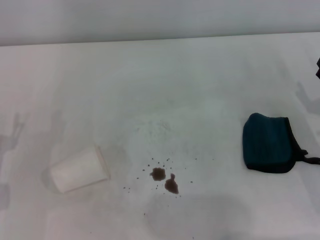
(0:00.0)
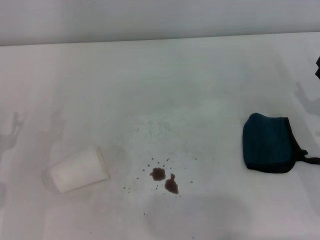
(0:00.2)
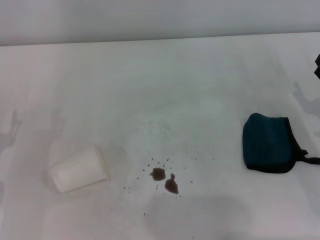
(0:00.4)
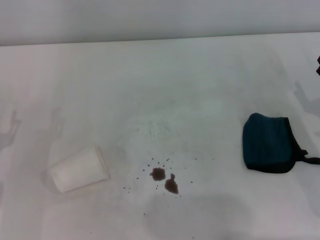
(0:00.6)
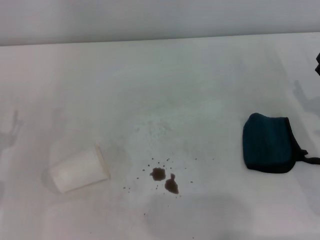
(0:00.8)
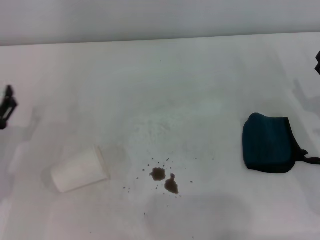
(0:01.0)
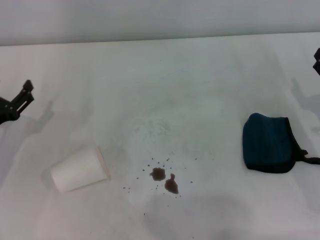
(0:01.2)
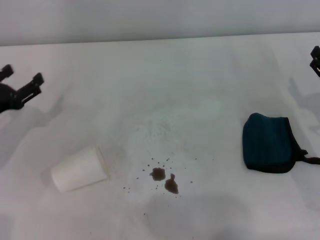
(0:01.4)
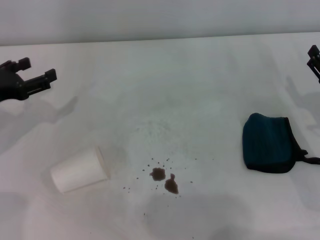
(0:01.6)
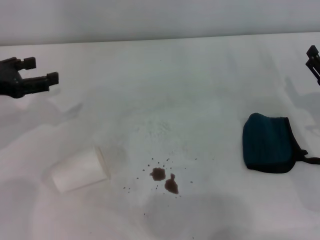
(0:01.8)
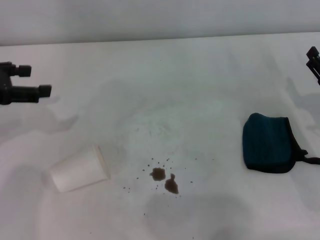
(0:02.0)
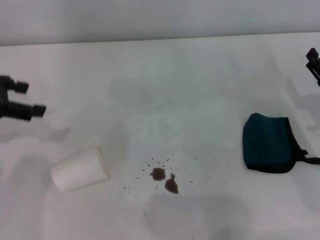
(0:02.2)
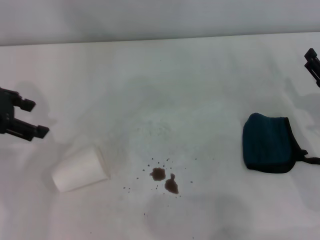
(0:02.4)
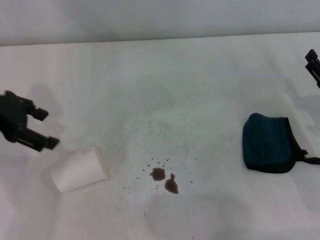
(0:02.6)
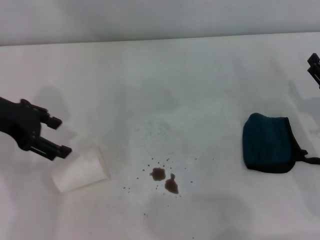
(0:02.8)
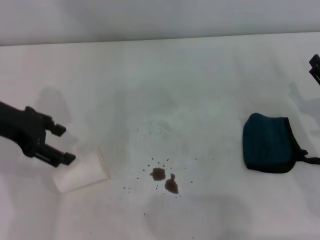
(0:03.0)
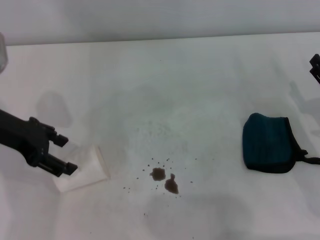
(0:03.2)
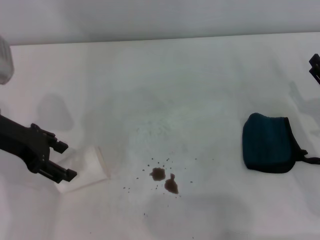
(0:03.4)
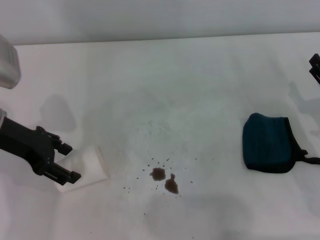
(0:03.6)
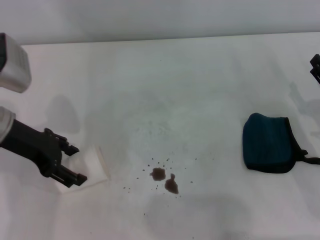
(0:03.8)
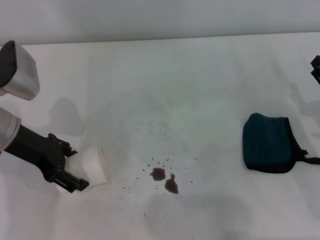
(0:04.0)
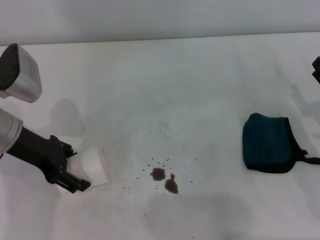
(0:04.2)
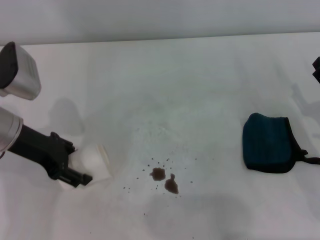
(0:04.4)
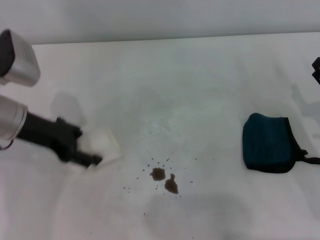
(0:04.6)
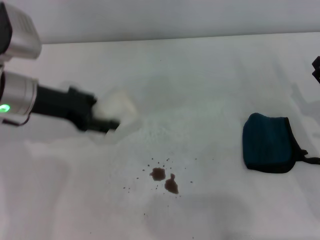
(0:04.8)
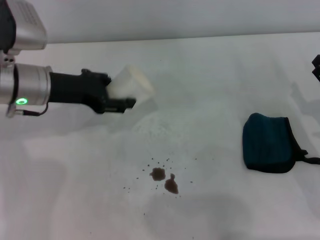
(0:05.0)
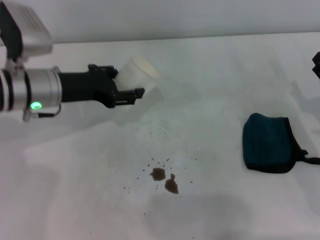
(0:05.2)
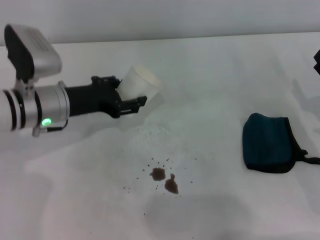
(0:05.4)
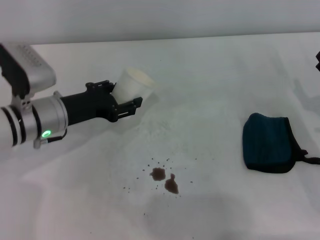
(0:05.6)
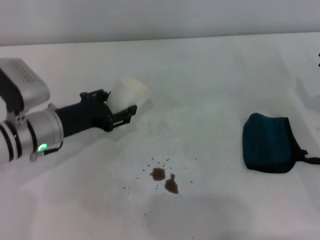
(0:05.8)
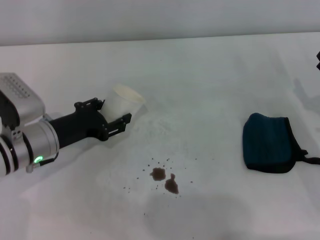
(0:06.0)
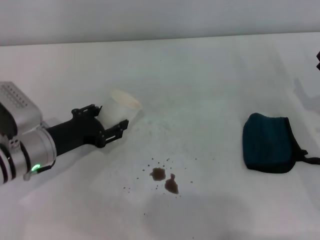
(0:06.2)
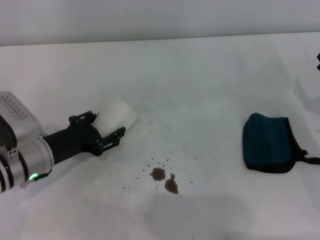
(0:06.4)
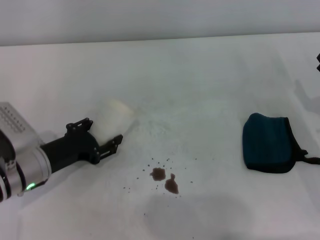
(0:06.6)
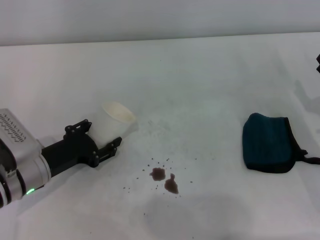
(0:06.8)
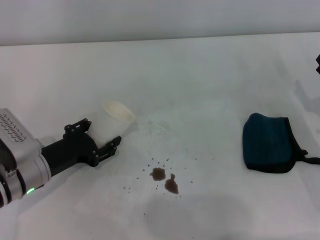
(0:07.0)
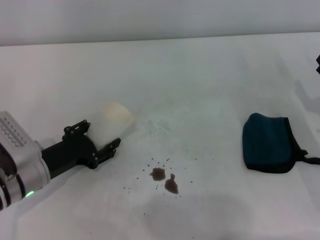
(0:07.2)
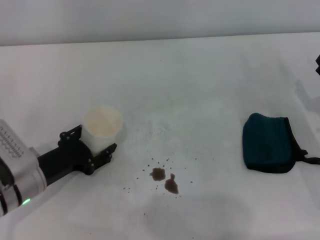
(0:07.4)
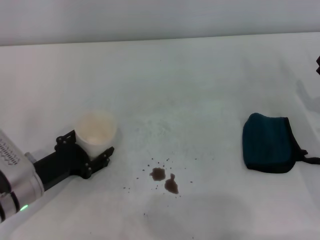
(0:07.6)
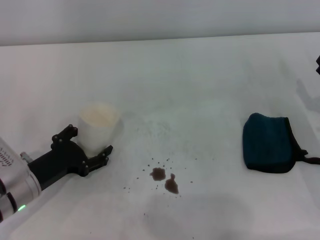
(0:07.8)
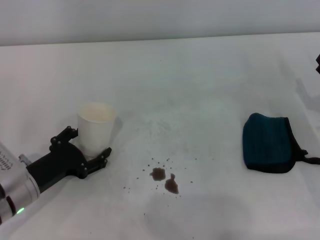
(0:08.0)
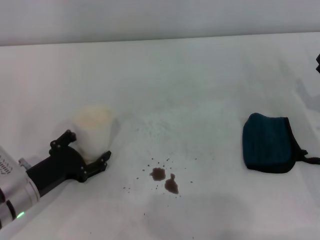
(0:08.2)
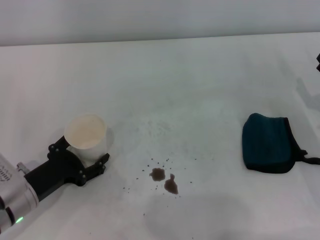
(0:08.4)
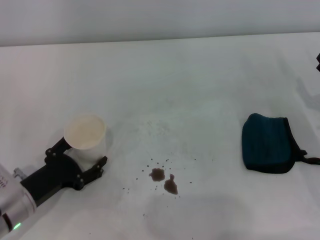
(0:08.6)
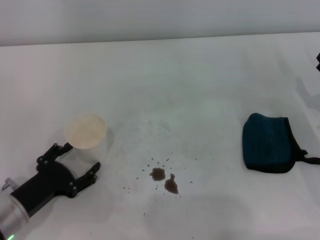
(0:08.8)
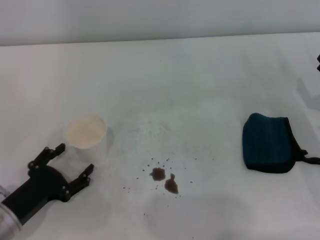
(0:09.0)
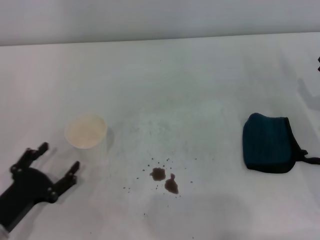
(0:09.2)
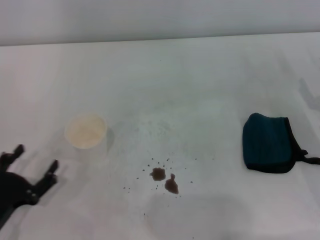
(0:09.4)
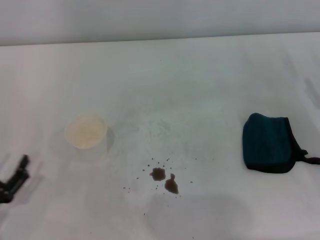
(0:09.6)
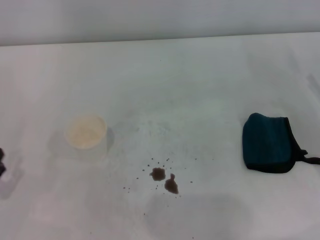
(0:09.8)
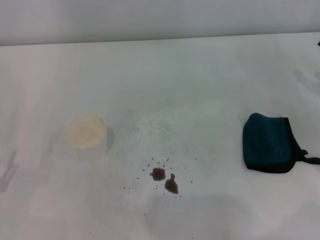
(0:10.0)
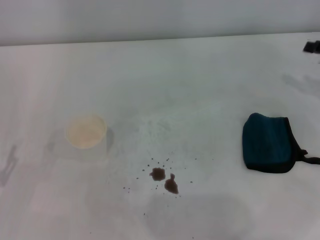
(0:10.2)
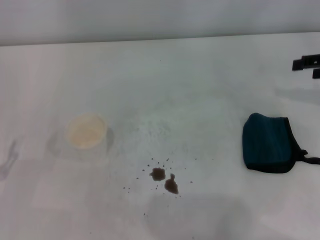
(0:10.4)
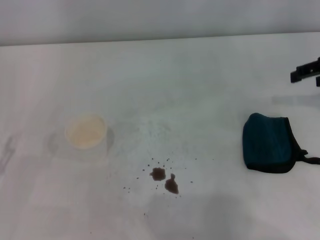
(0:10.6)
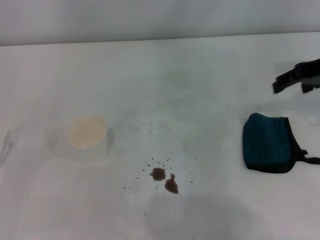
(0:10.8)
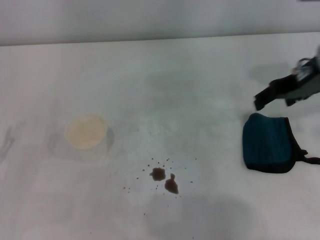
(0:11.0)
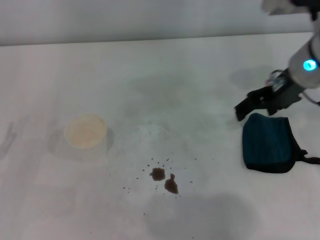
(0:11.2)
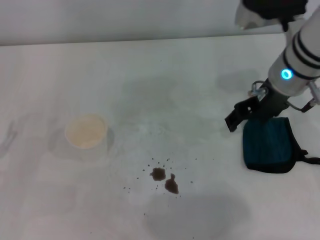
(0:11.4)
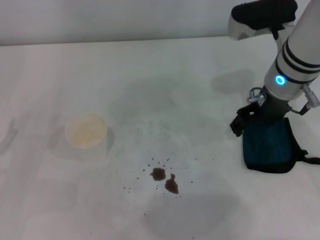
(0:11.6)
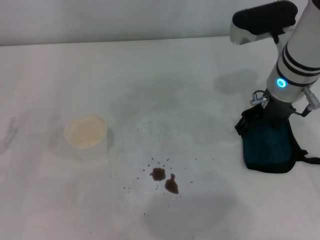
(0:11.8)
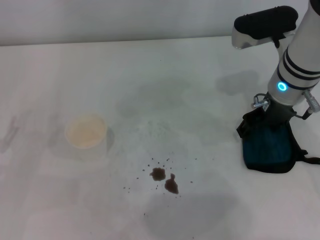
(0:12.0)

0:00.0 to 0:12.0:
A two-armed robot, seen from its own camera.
Step, 0:00.0 to 0:04.0: Grasp the paper cup with the left gripper.
Step, 0:04.2 to 0:08.4: Stand the paper cup upright with the left gripper.
0:00.0 to 0:01.6: The left gripper is displaced forward and upward by some 15 cm.
0:01.6 to 0:03.0: The left gripper moves upward and to the right, about 10 cm.
0:03.0 to 0:04.4: The left gripper goes some 5 cm downward, and closes.
0:04.4 to 0:06.0: The left gripper moves downward, approximately 10 cm, and closes up.
0:06.0 to 0:07.6: The left gripper is displaced backward by approximately 5 cm.
0:07.6 to 0:09.0: The left gripper moves backward, about 5 cm, and opens up.
0:09.0 to 0:10.4: The right gripper shifts about 15 cm upward and forward; the left gripper goes some 5 cm to the left.
0:10.4 to 0:12.0: The right gripper shifts roughly 20 cm to the left.

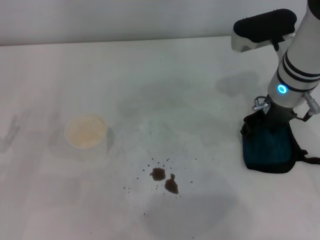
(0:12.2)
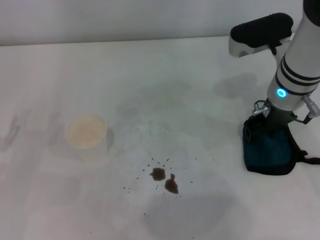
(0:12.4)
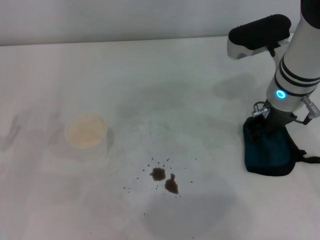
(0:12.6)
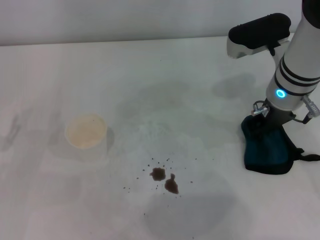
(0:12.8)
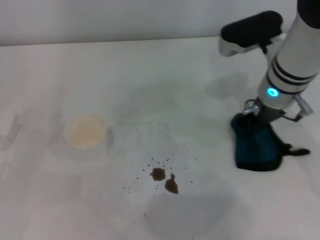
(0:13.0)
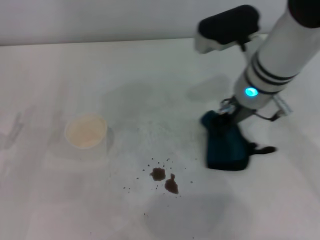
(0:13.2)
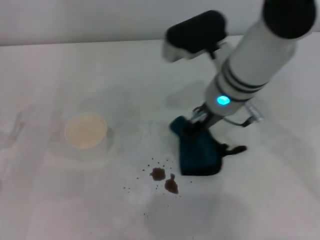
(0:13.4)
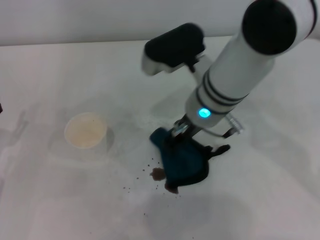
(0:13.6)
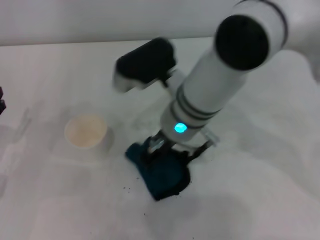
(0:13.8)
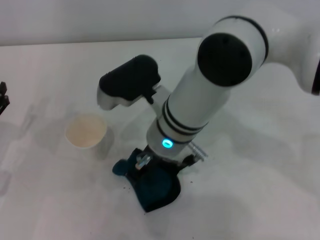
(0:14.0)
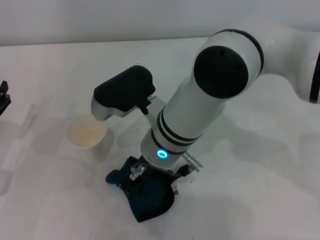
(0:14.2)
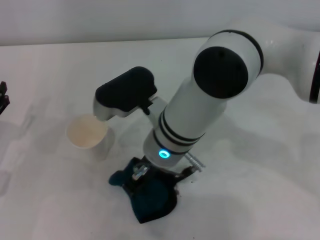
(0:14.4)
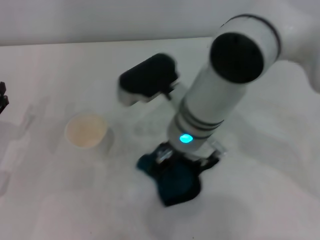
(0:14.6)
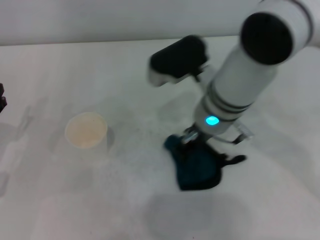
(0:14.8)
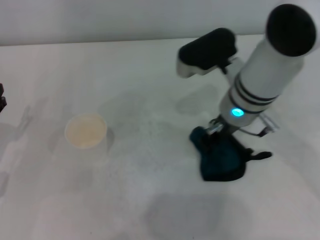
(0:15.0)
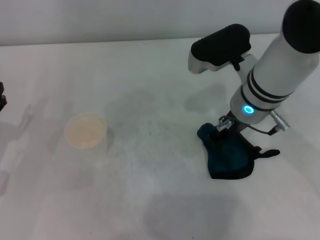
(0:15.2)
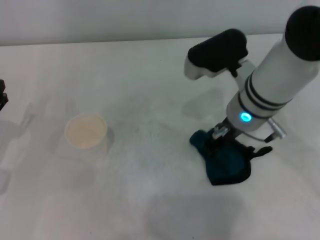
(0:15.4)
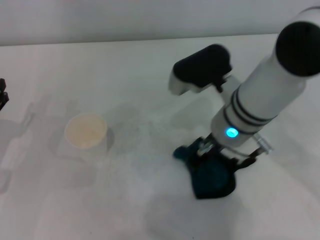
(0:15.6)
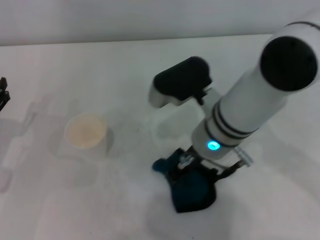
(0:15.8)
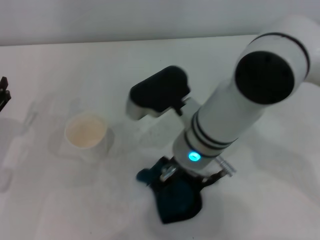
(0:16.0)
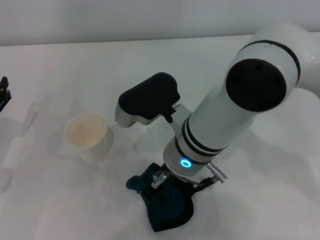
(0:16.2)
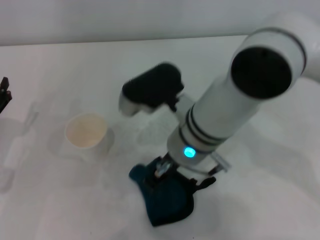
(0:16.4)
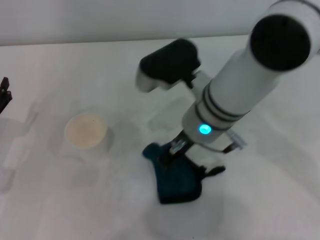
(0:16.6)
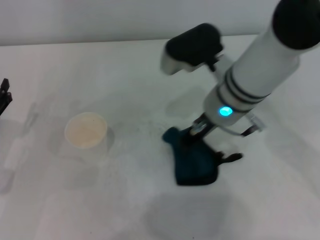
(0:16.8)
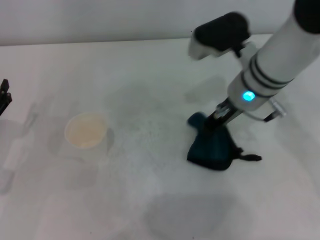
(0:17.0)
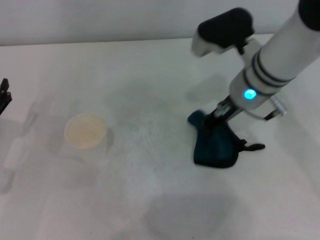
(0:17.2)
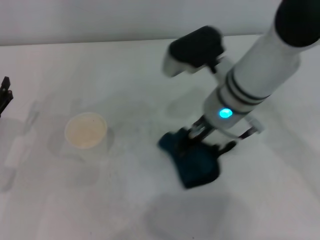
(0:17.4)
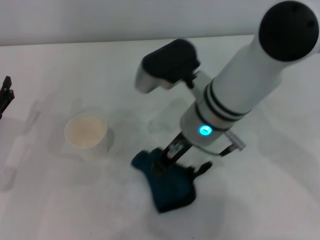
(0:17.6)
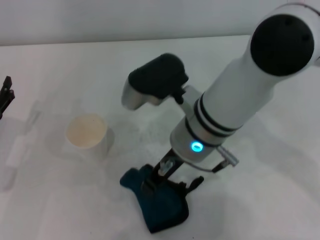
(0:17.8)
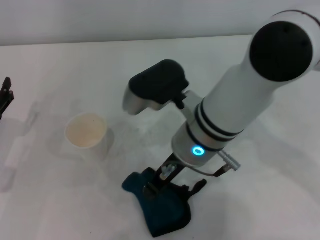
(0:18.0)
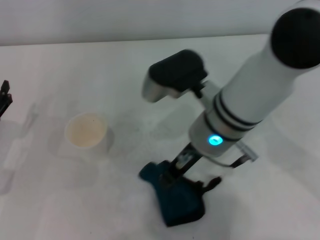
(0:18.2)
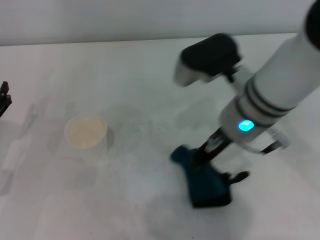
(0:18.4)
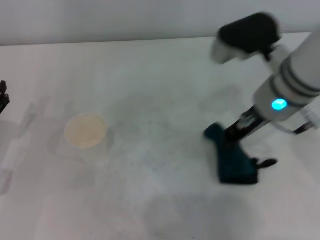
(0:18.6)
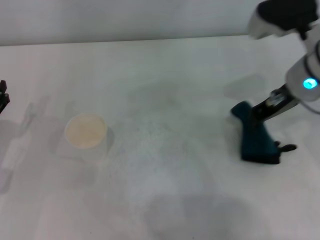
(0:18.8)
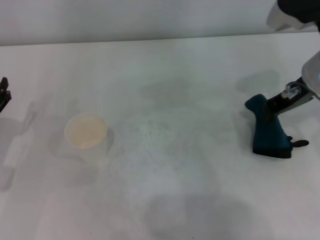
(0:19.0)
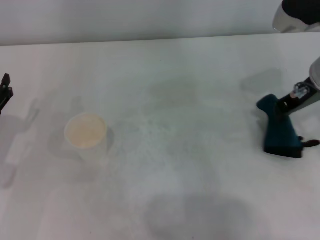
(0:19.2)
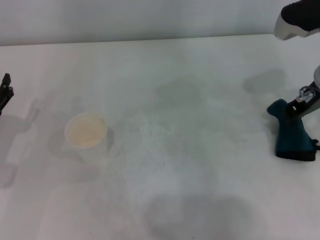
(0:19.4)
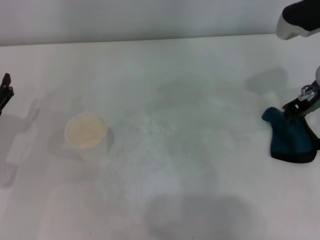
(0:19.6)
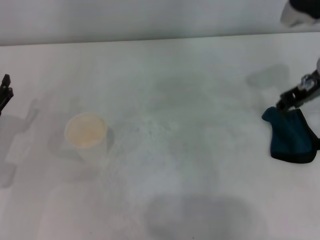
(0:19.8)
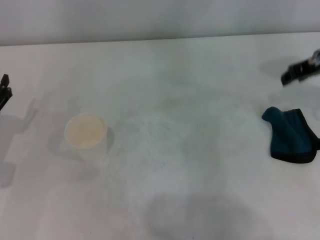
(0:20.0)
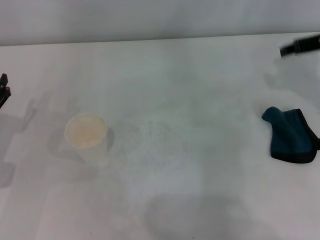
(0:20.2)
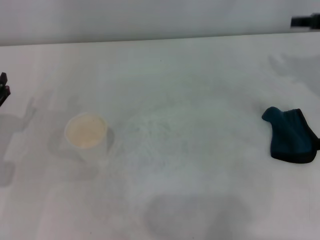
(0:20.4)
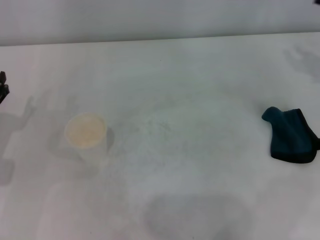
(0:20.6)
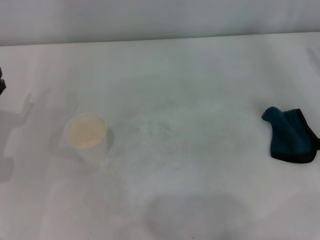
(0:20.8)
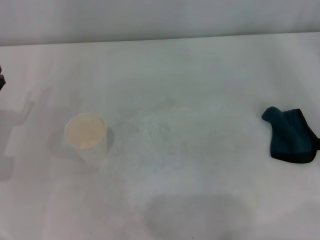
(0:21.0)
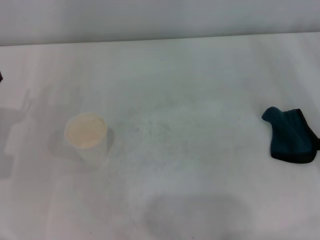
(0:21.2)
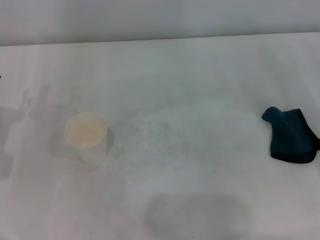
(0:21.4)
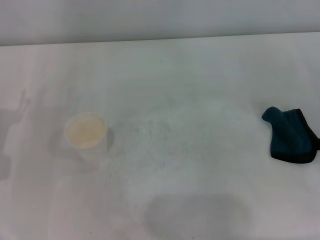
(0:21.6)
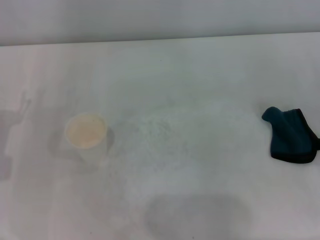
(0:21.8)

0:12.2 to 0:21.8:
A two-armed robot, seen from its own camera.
Step, 0:13.0 to 0:18.6: Wipe the stains off the table with the right gripper.
Step, 0:18.8 to 0:19.4: Place the rag on the table with the right gripper.
0:12.2 to 0:13.8: The right gripper moves to the left, some 15 cm, and closes its fingers.
0:13.8 to 0:15.4: The right gripper travels to the right by about 10 cm.
0:15.4 to 0:17.0: The right gripper goes to the left and returns, approximately 10 cm each way.
0:17.0 to 0:18.6: The right gripper travels to the left and back again, roughly 10 cm each way.
0:18.6 to 0:20.2: The right gripper goes about 15 cm to the right, and opens its fingers.
0:20.2 to 0:21.8: The right gripper heads downward, backward and to the right, covering about 25 cm.
